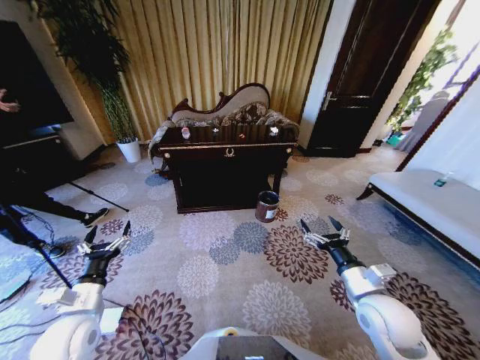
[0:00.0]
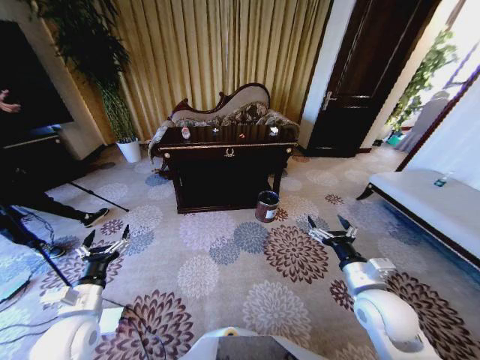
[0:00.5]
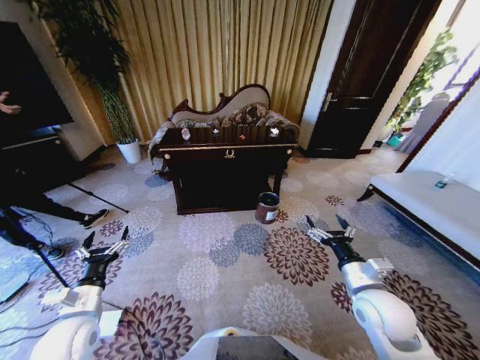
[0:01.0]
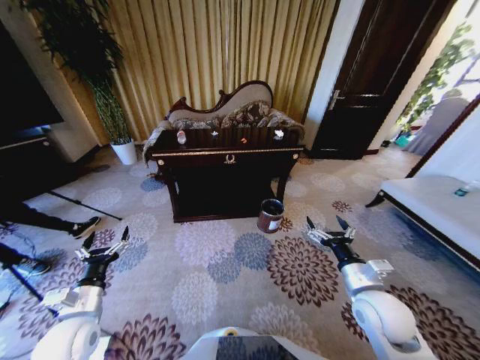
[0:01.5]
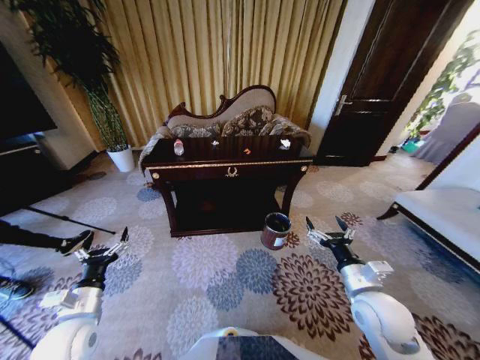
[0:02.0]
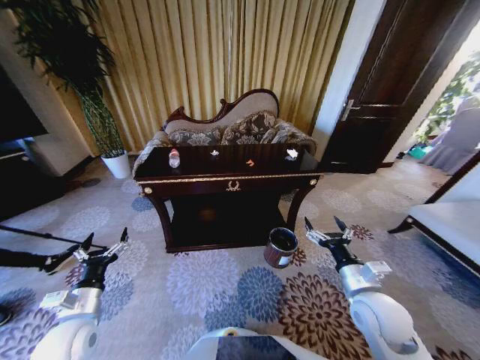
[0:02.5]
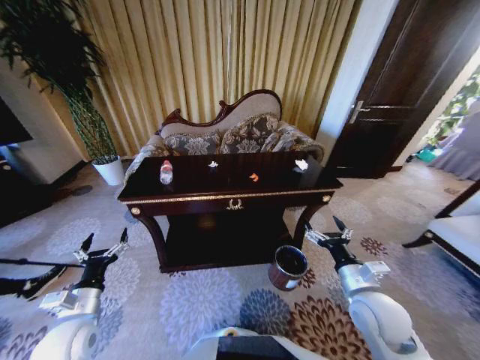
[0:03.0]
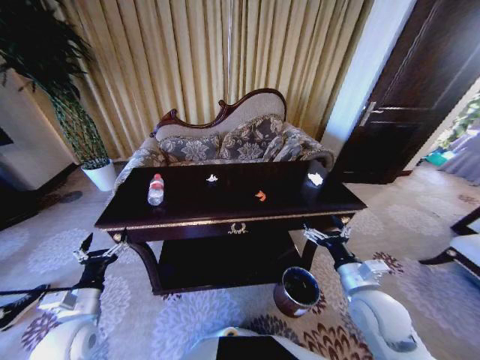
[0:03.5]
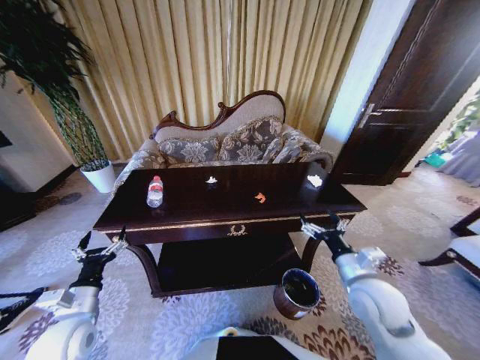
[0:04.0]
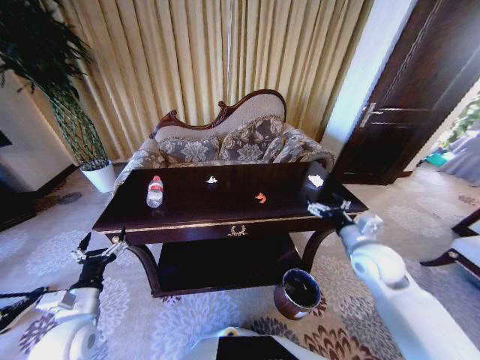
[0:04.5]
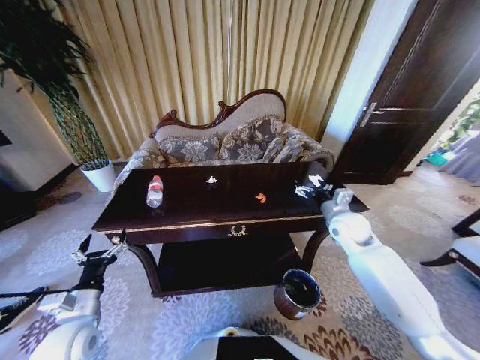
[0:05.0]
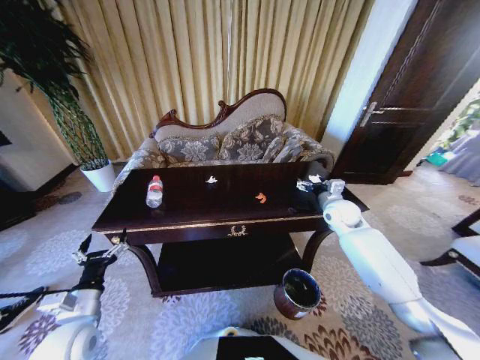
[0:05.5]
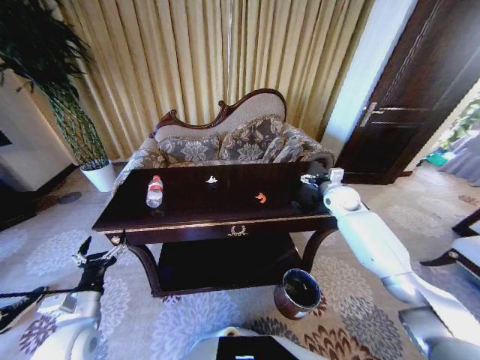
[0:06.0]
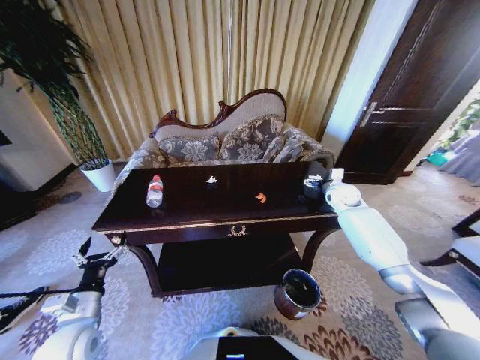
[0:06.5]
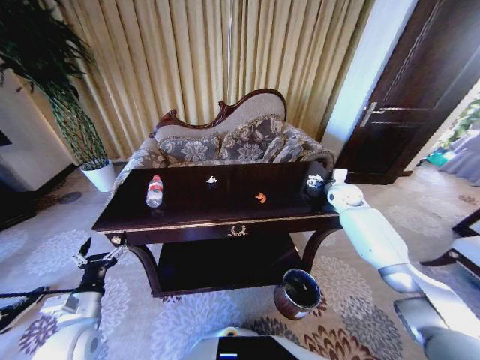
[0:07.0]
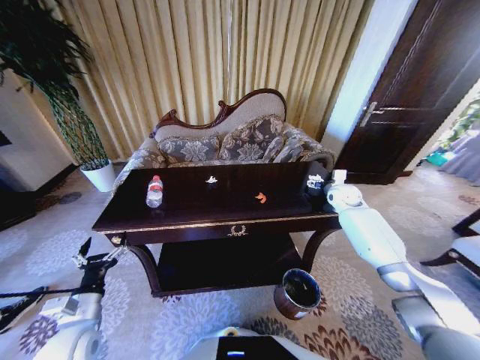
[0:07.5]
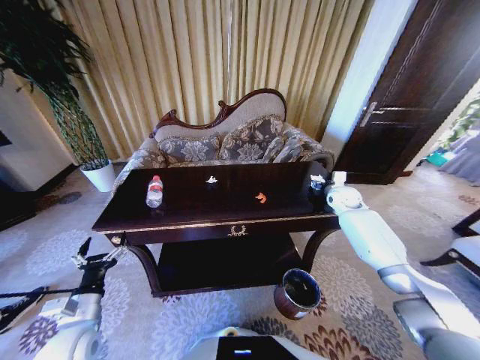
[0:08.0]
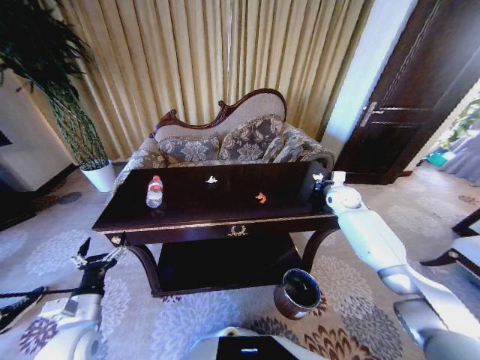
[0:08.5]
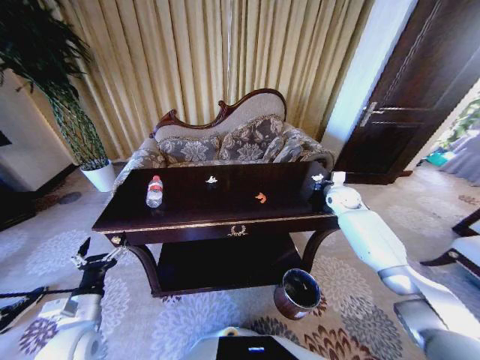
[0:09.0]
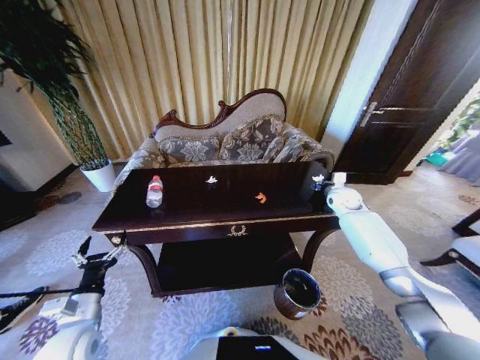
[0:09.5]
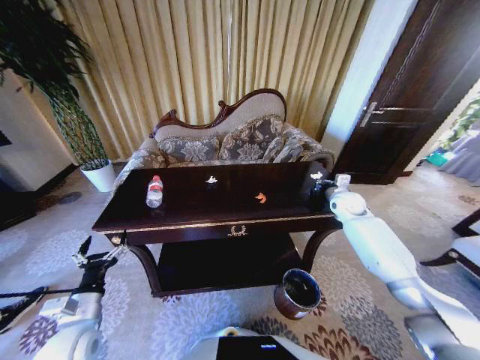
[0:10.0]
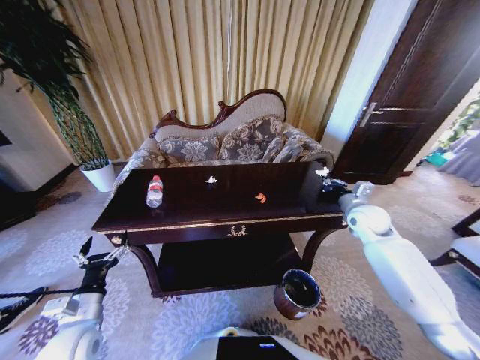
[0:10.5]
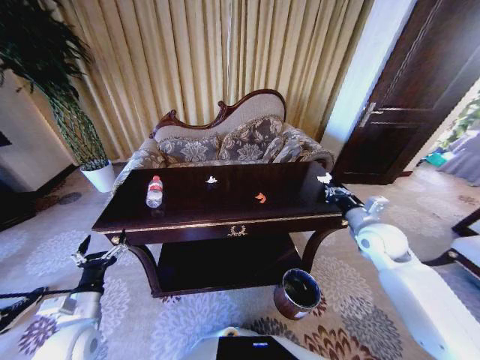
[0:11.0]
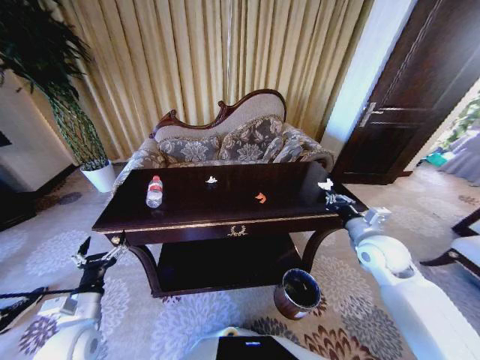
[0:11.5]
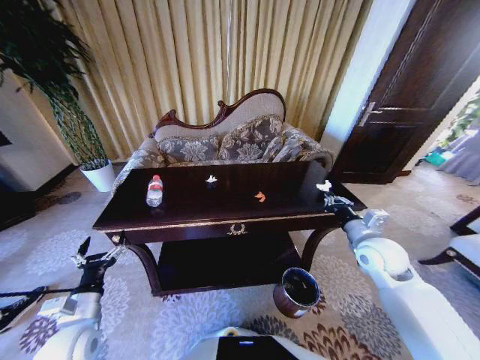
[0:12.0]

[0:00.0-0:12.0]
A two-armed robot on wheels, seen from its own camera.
Task of the whole recording: Move to the front of the table and place the trash on the table into the trash bin.
0:04.0 to 0:06.0: The right gripper moves forward, about 30 cm.
0:06.0 to 0:08.0: The right gripper closes its fingers.
0:08.0 to 0:10.0: The right gripper closes its fingers.
0:10.0 to 0:12.0: The right gripper moves backward, about 20 cm.

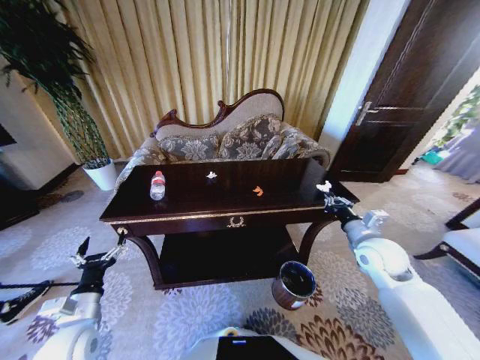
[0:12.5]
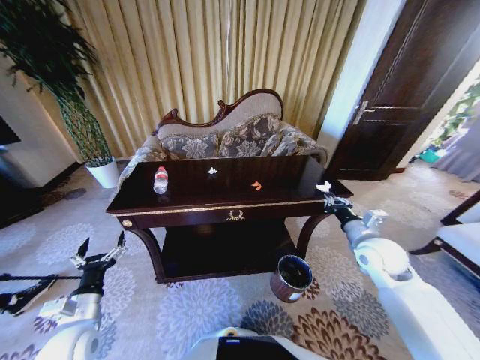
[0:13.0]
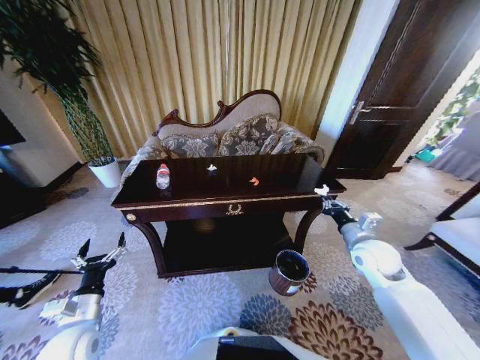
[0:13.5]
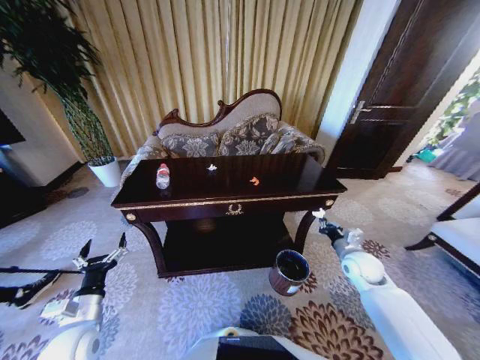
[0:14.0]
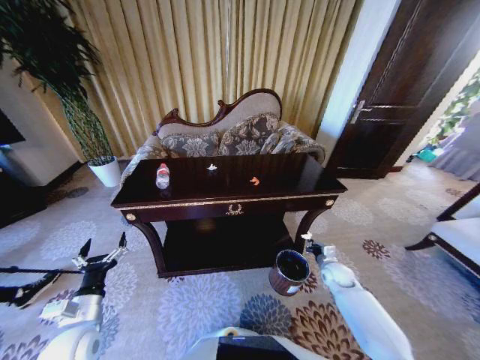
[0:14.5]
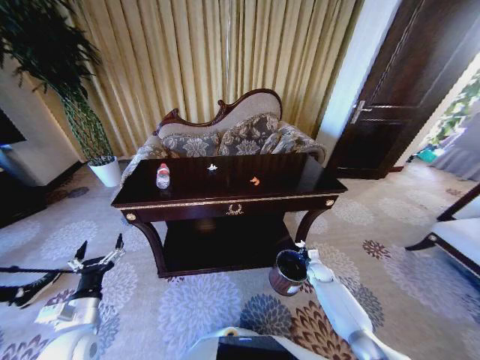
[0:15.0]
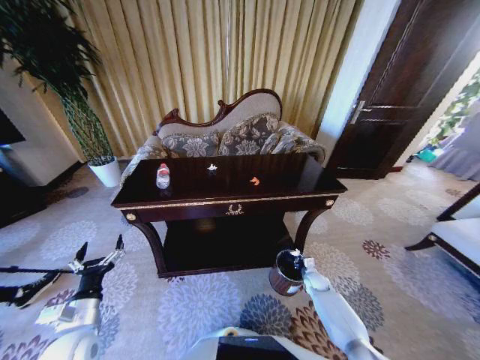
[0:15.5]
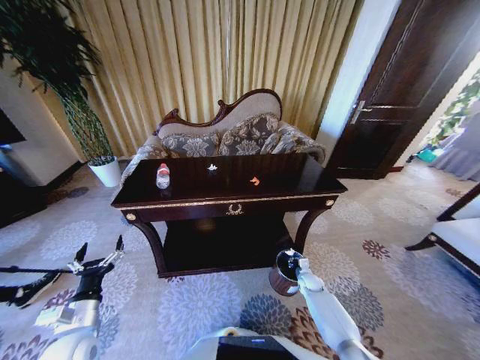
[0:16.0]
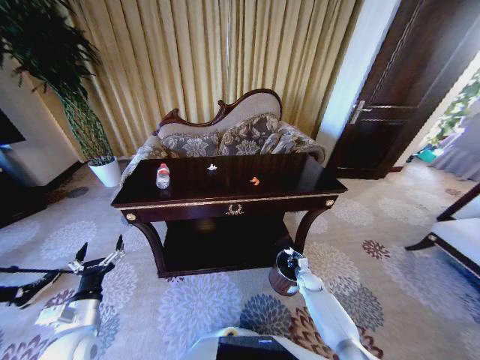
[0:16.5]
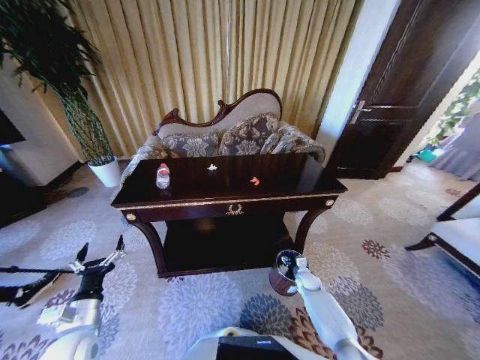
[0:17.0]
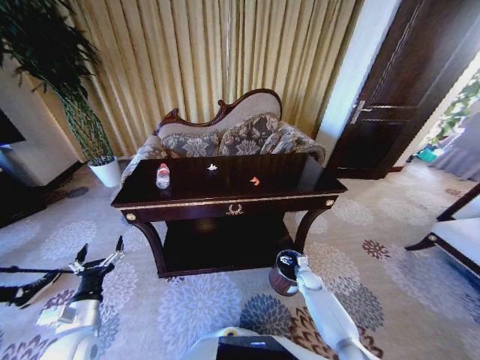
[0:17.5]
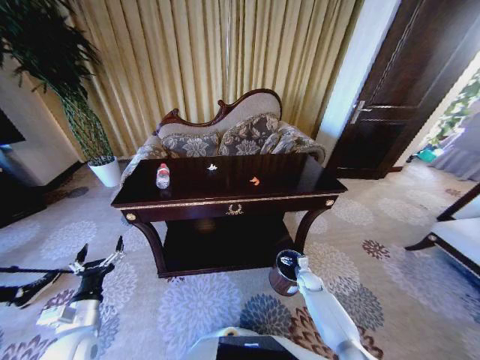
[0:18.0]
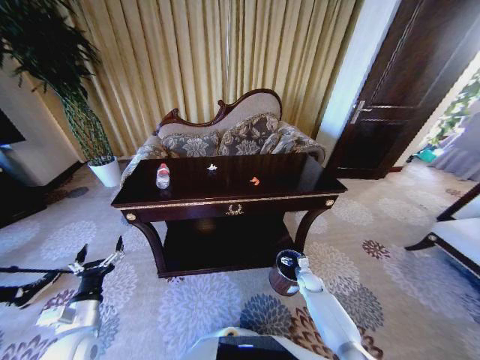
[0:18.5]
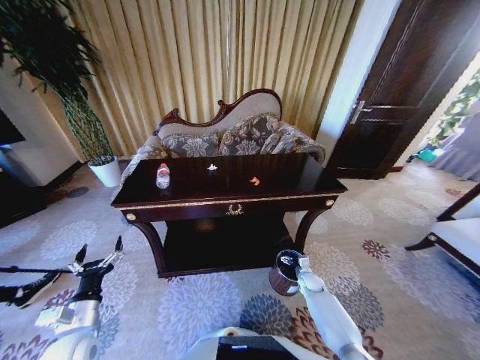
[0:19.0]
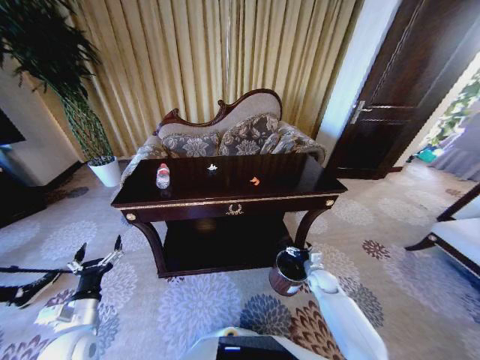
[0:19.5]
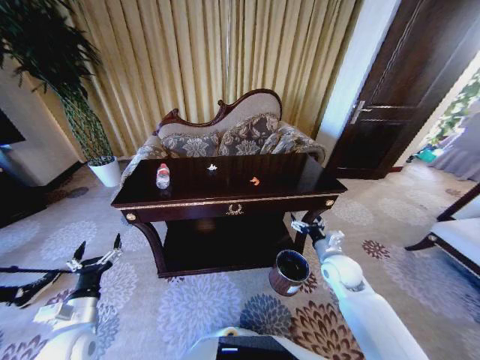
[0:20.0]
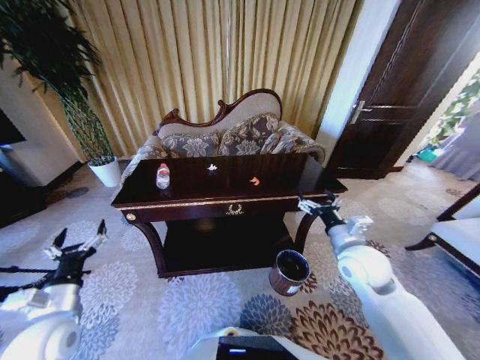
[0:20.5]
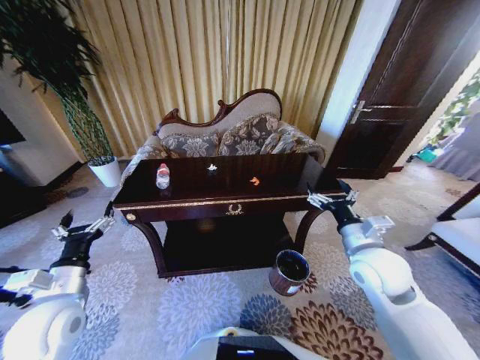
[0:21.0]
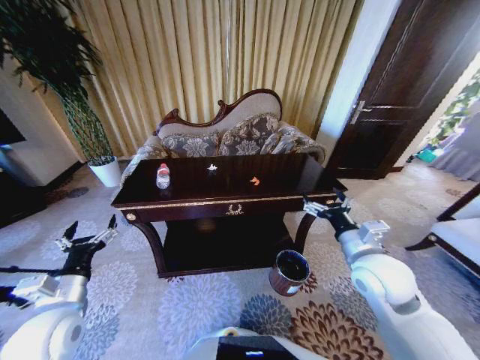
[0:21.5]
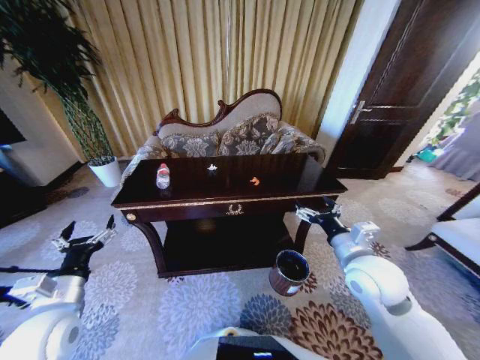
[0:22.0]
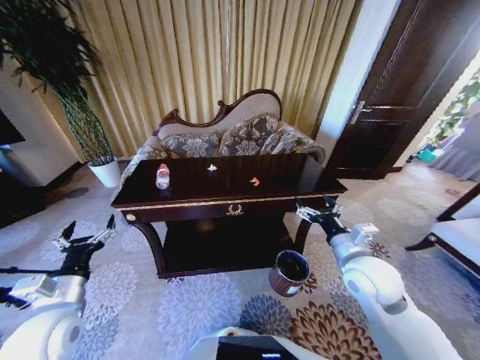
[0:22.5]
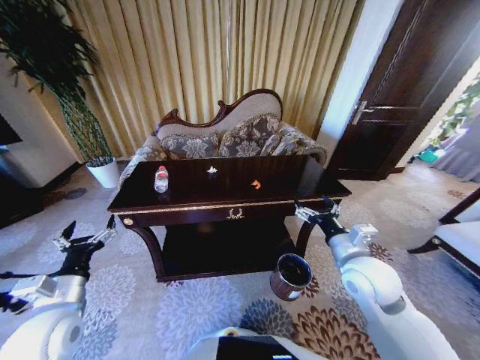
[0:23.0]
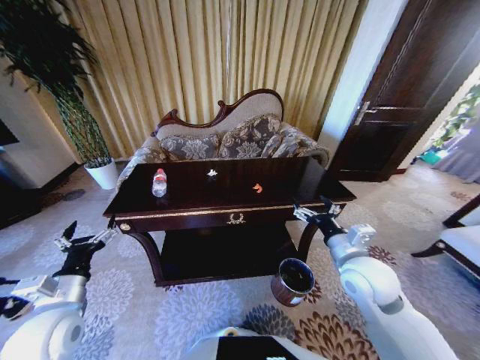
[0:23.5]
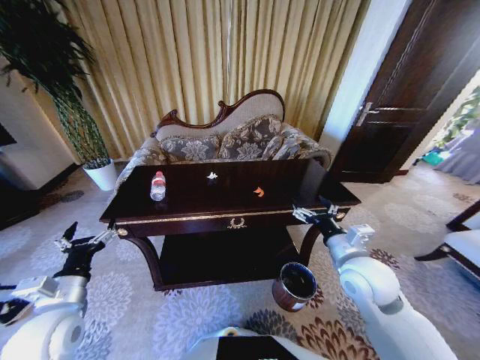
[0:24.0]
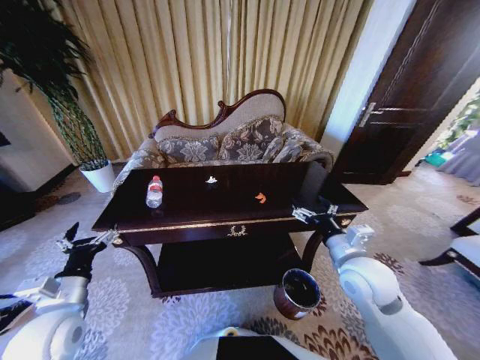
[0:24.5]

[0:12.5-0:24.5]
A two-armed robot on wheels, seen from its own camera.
Task of the whole recording: Move to the front of the table and place the trash on the table into the trash bin.
0:12.5 to 0:14.5: The right gripper heads downward, covering about 25 cm.
0:14.5 to 0:16.5: The right gripper goes approximately 10 cm downward and to the left.
0:18.5 to 0:20.5: The left gripper heads upward, covering some 5 cm. Meanwhile the right gripper shifts approximately 35 cm upward.
0:20.5 to 0:22.5: The grippers make only small movements.

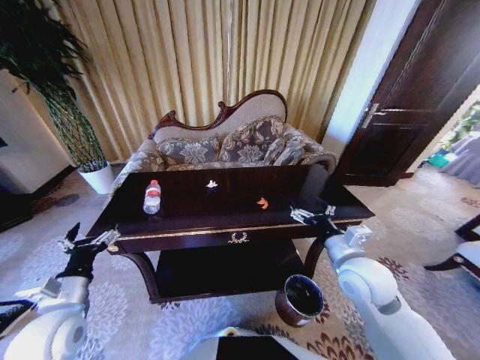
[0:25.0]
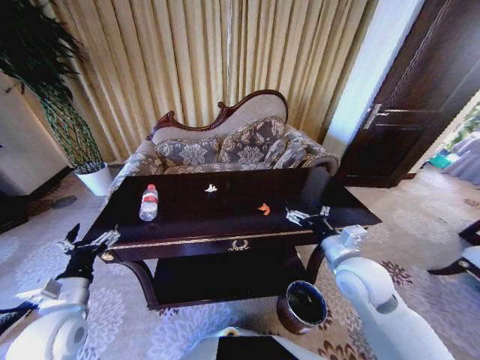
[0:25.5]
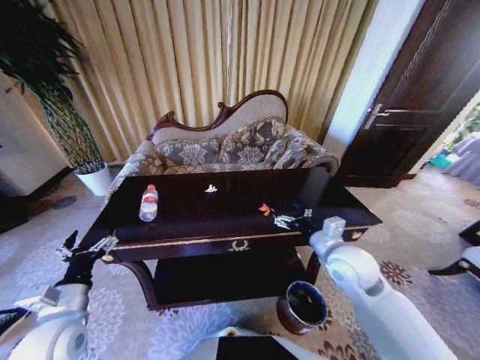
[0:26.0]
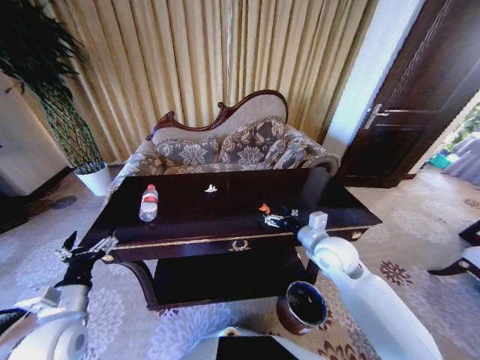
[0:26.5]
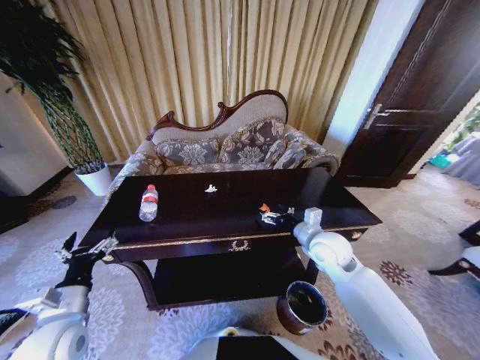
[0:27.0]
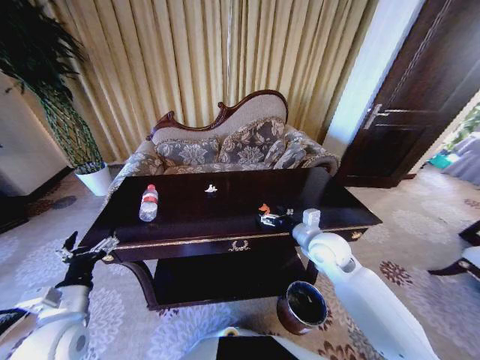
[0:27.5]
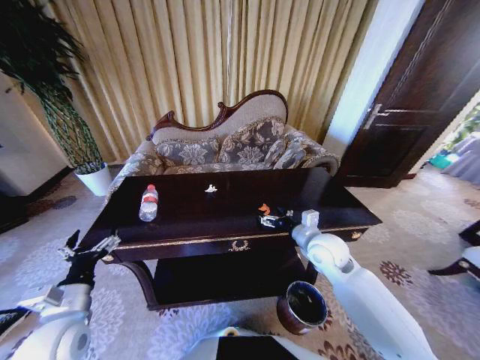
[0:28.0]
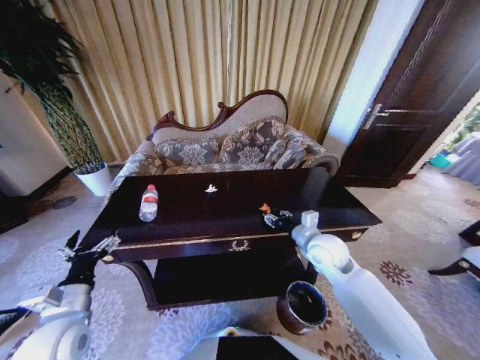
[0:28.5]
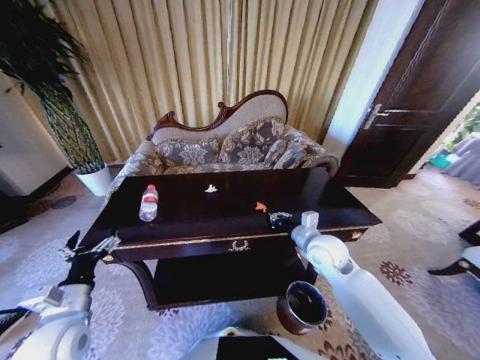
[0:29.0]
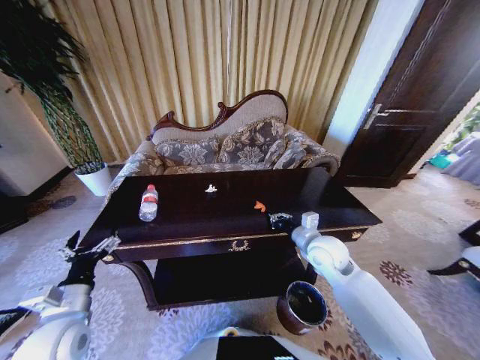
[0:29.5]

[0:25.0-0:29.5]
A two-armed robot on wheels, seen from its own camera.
Task of the whole recording: Move to the front of the table and place the trash on the table into the trash bin.
0:25.0 to 0:27.0: The right gripper heads forward, covering approximately 10 cm.
0:27.0 to 0:29.5: The right gripper closes its fingers.
